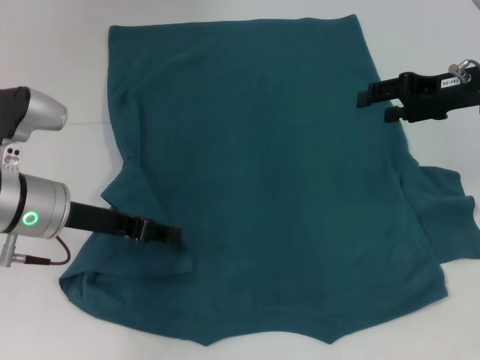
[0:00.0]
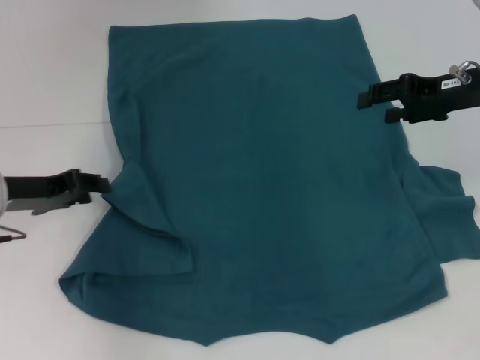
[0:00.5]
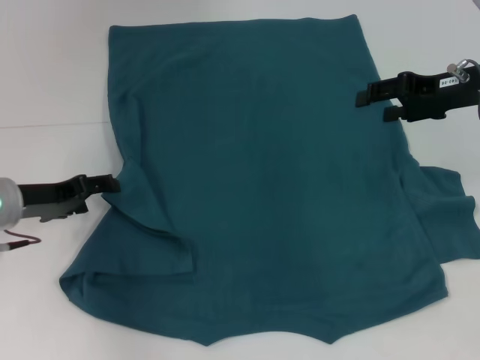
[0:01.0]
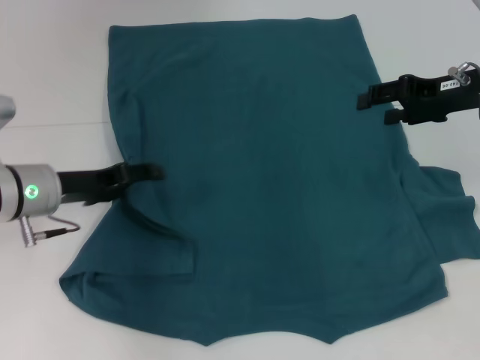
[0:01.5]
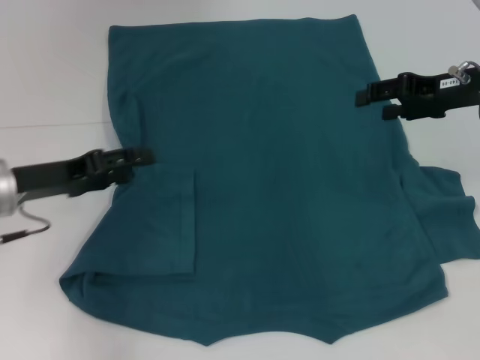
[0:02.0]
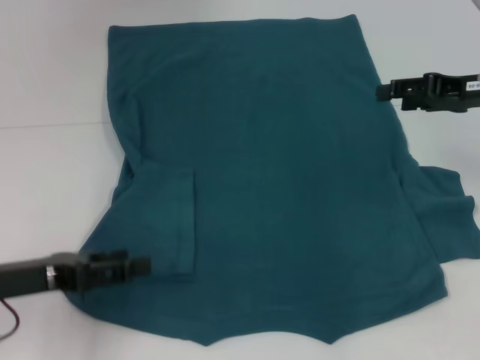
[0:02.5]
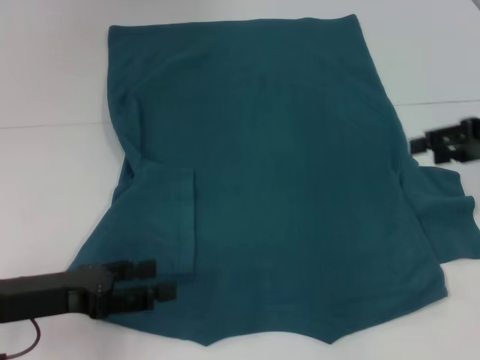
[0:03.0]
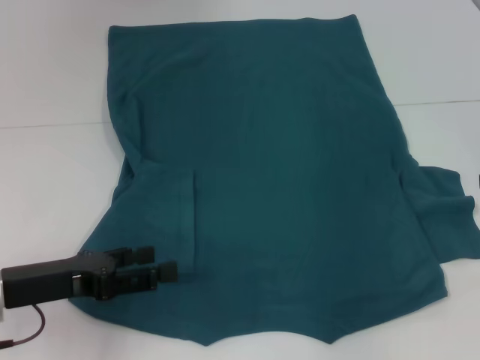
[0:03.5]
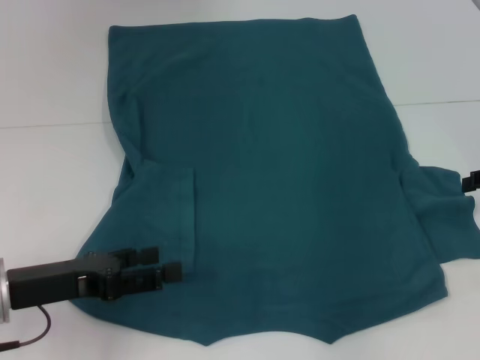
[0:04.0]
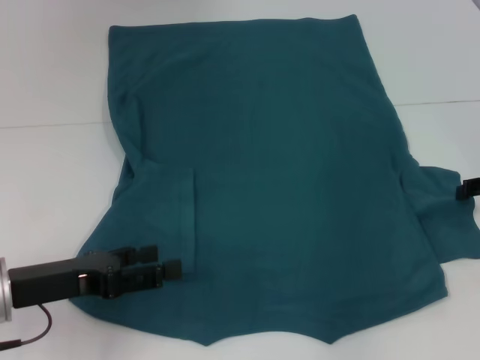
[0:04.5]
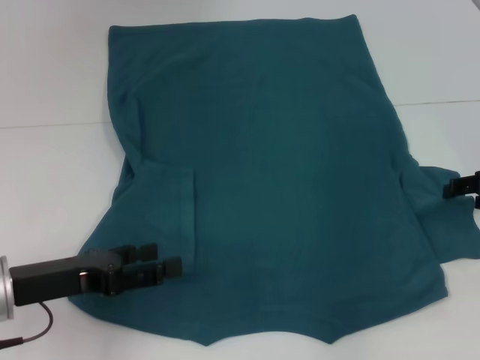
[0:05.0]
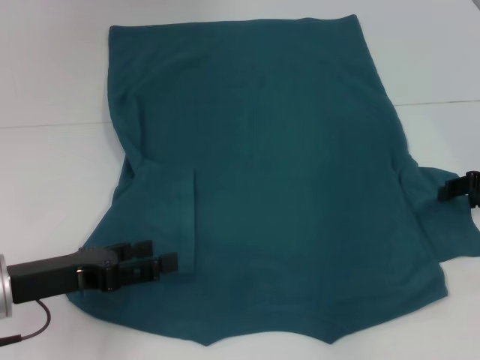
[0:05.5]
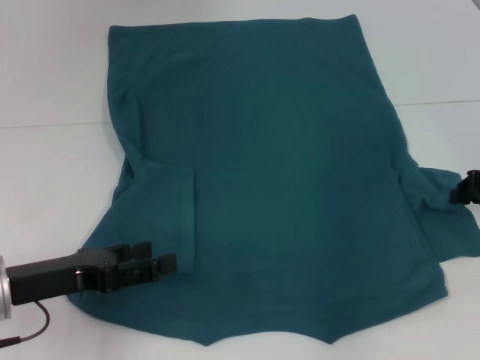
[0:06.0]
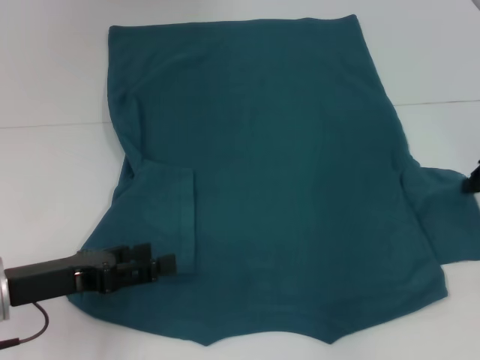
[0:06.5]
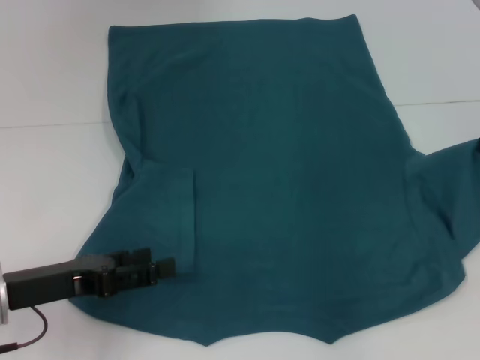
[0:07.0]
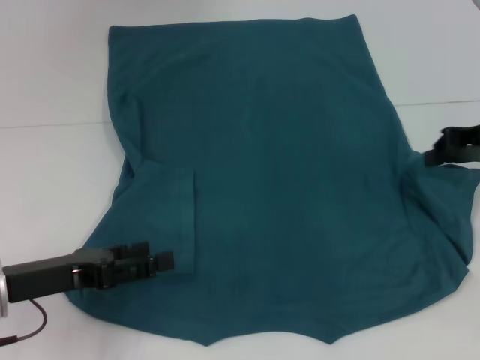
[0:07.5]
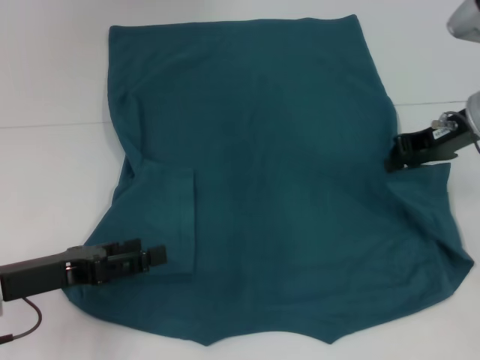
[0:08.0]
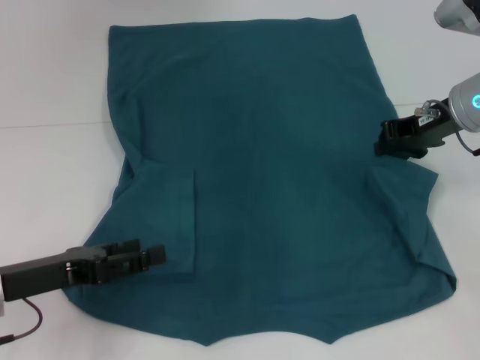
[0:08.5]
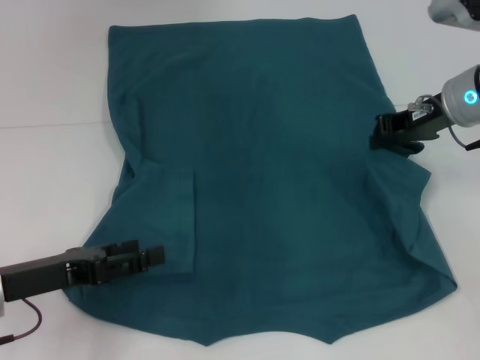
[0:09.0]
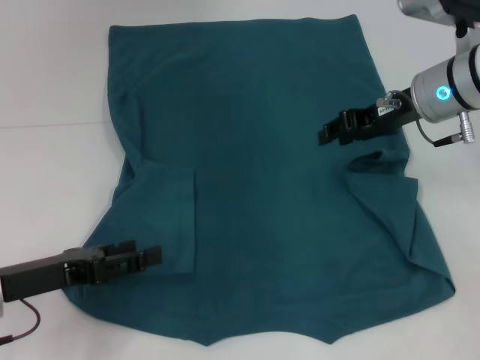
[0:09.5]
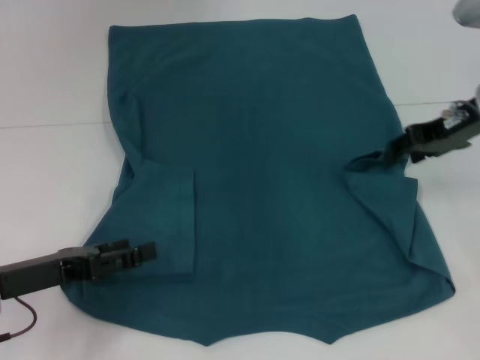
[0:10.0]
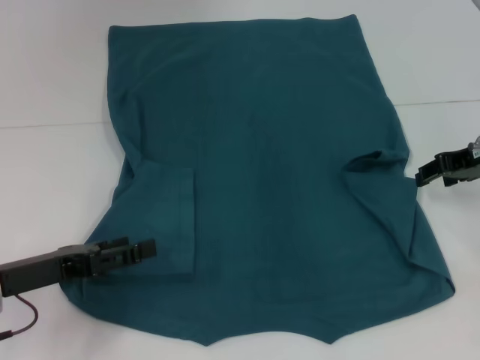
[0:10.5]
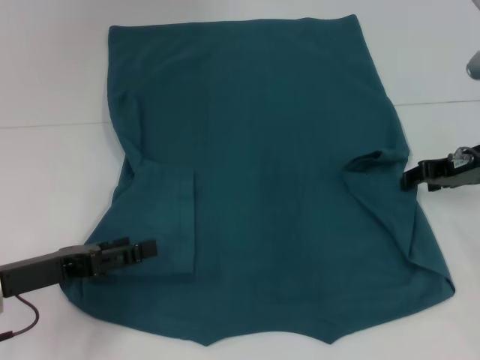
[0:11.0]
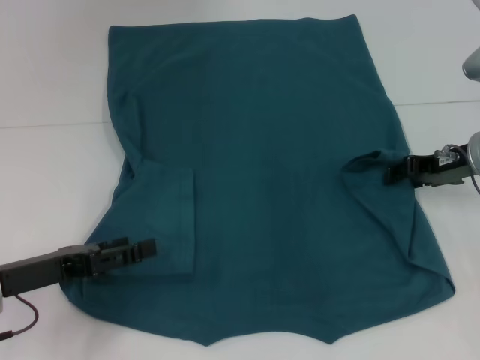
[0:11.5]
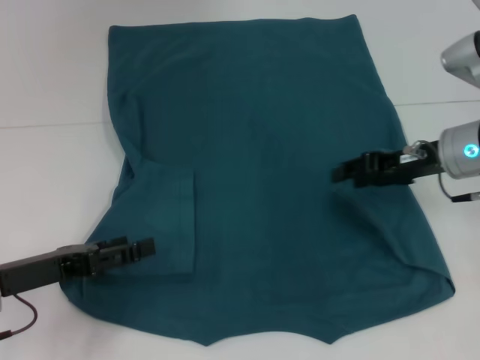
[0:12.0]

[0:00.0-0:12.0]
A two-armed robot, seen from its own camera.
0:00.0 to 0:02.0: The left gripper goes about 5 cm to the left, and opens up.
0:02.0 to 0:04.0: The right gripper travels to the right and backward by approximately 10 cm. Meanwhile the left gripper shifts about 10 cm backward.
0:04.0 to 0:06.0: The right gripper closes its fingers.
0:06.0 to 0:08.0: The right gripper heads to the left, upward and forward, covering roughly 10 cm.
0:08.0 to 0:10.0: The right gripper opens.
0:10.0 to 0:12.0: The right gripper moves downward, some 5 cm.

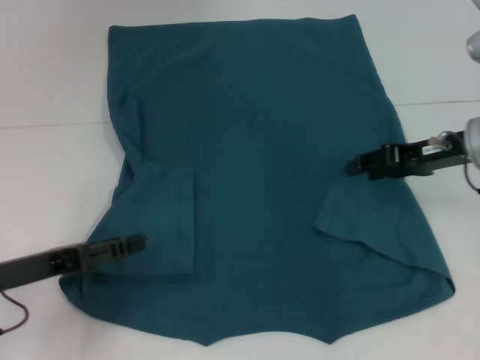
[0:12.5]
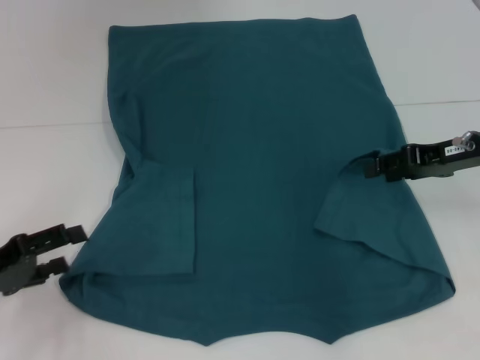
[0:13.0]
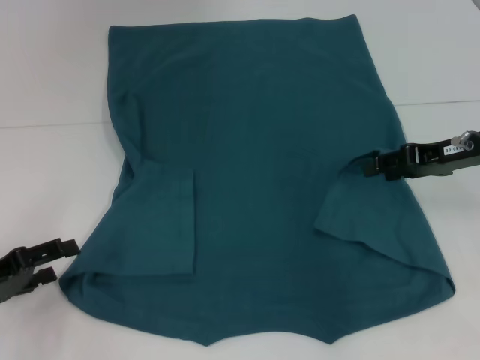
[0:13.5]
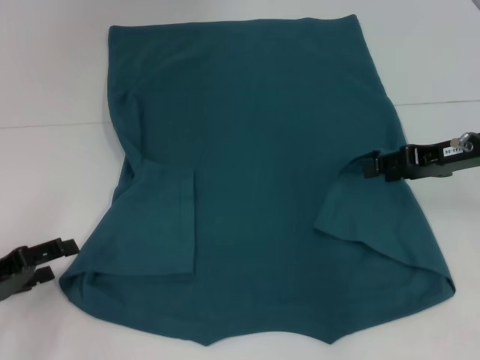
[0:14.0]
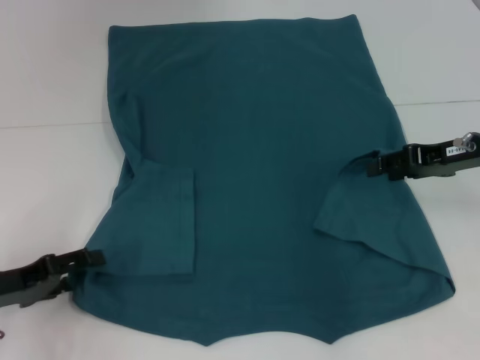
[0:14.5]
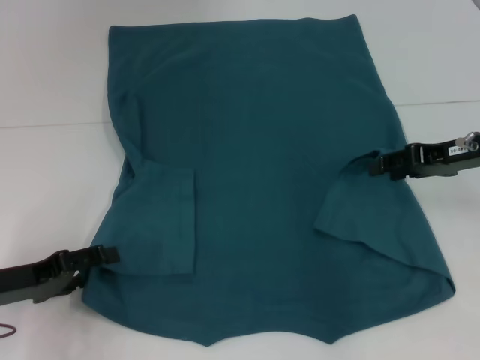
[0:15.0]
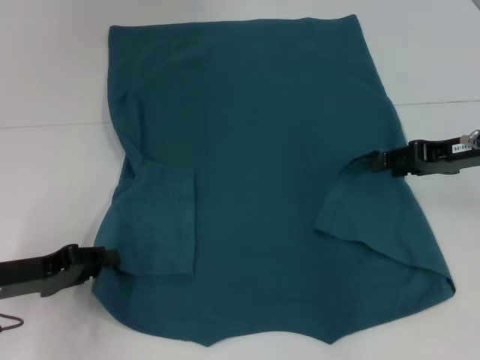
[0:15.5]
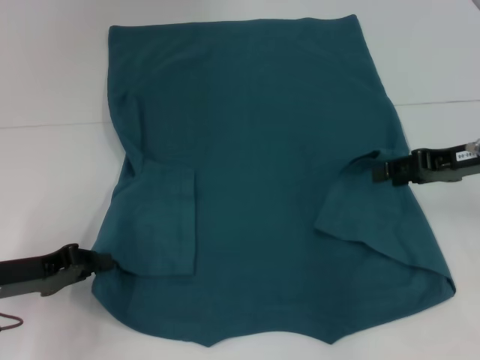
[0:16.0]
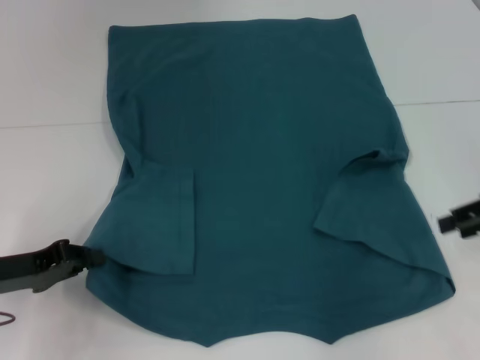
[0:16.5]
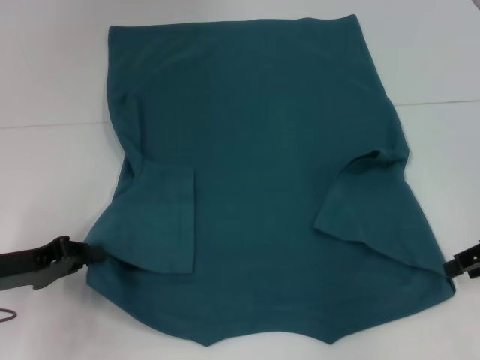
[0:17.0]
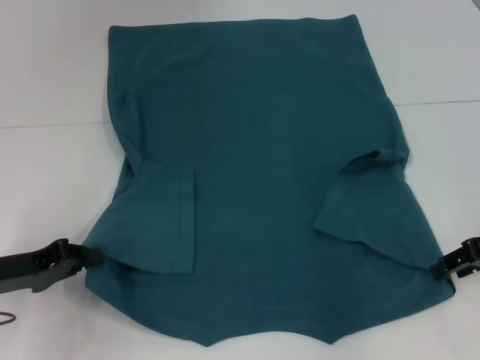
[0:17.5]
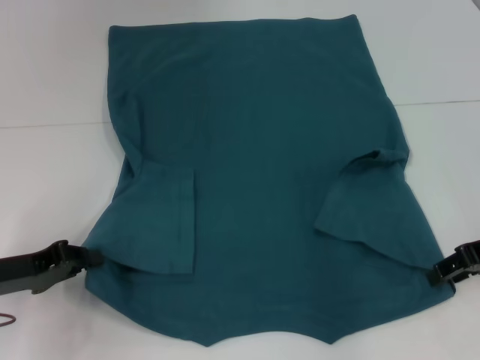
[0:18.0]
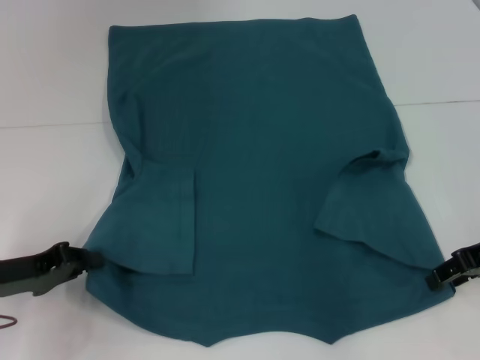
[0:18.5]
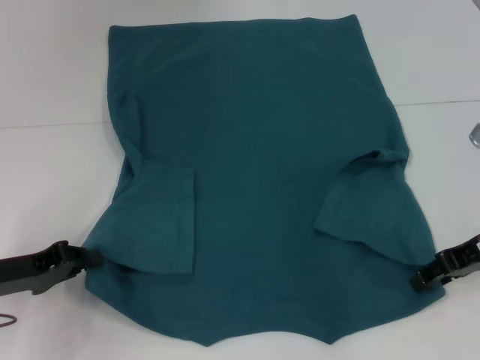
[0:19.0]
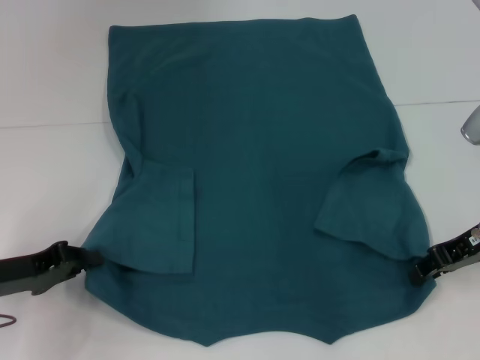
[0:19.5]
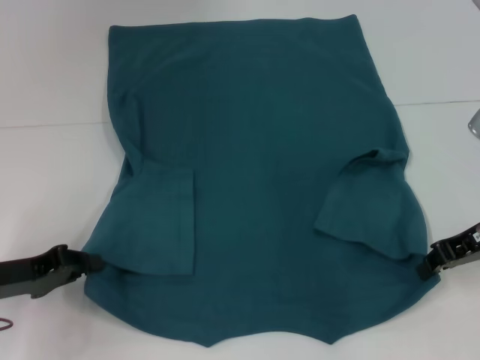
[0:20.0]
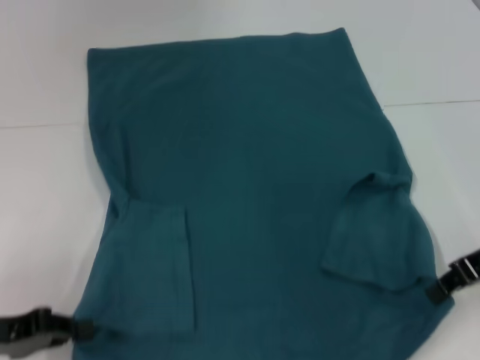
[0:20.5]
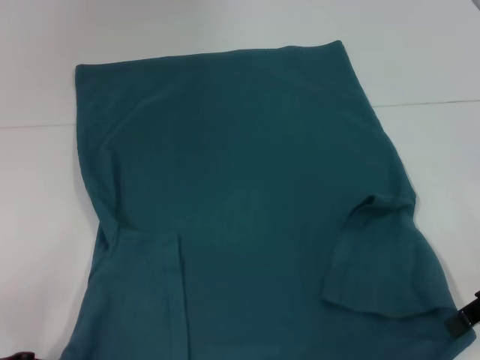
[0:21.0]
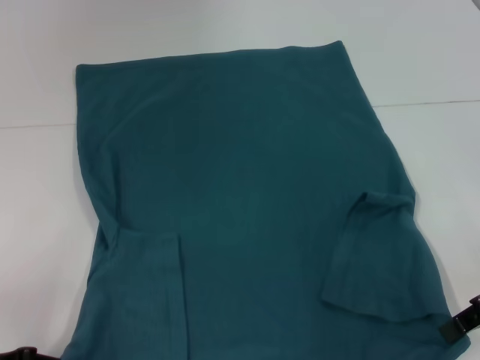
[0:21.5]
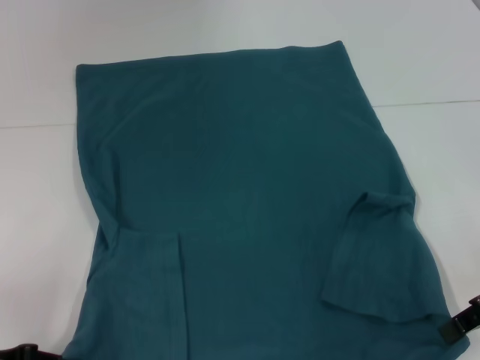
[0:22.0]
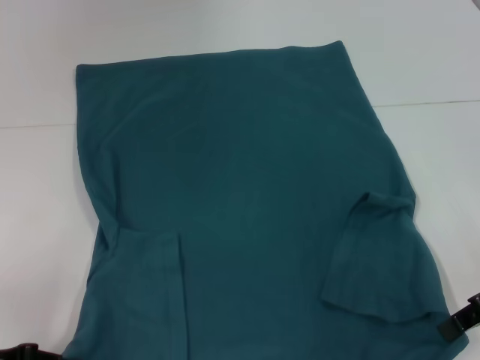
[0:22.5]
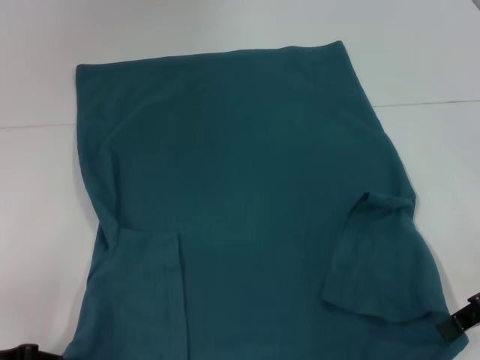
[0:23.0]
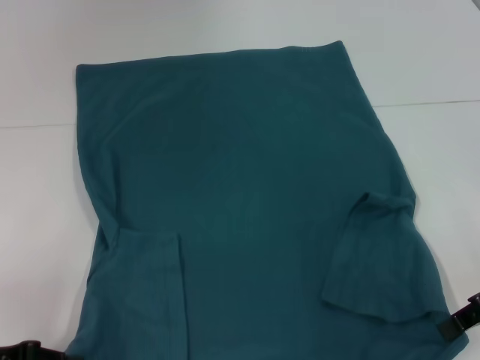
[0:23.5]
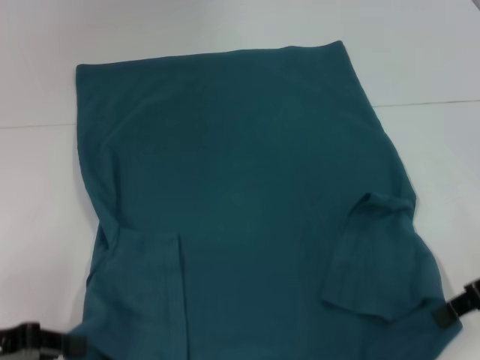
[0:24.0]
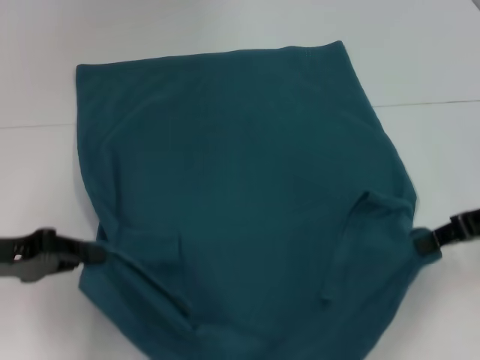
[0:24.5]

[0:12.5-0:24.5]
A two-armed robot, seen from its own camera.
Step, 0:12.5 to 0:16.0: Grab the bottom left corner with your left hand.
Step, 0:16.5 to 0:20.0: Grab the bottom right corner with your right hand.
0:14.5 to 0:16.5: The right gripper is displaced to the right by about 5 cm; the left gripper closes its fingers.
0:16.5 to 0:18.5: The right gripper ends up some 5 cm from where it was.
0:18.5 to 0:20.5: The right gripper closes up.
0:20.5 to 0:22.5: The grippers make only small movements.
0:22.5 to 0:24.5: The left gripper goes approximately 5 cm forward.

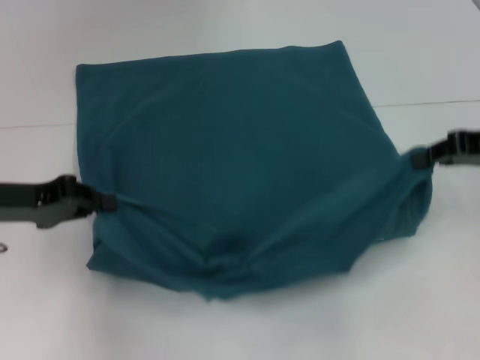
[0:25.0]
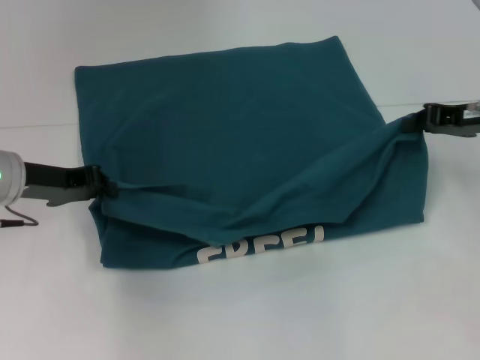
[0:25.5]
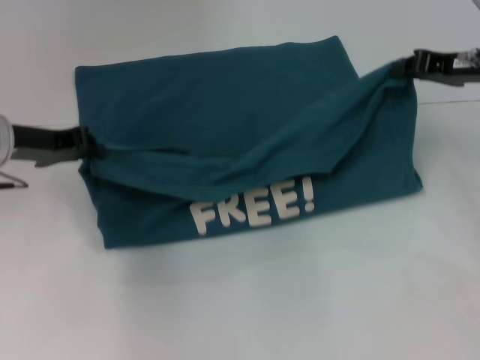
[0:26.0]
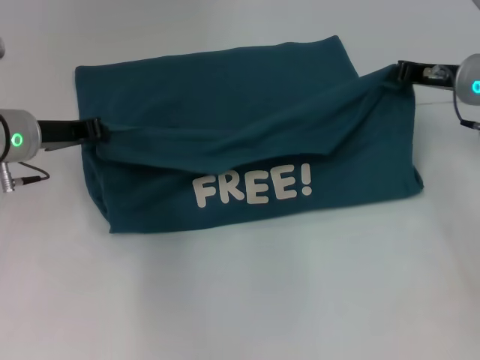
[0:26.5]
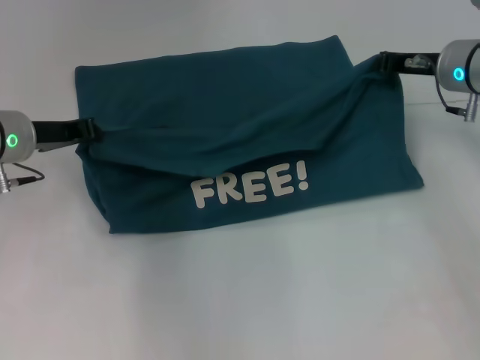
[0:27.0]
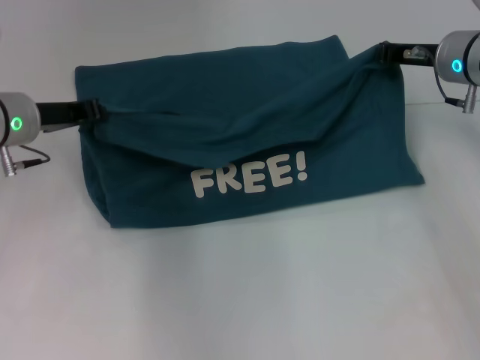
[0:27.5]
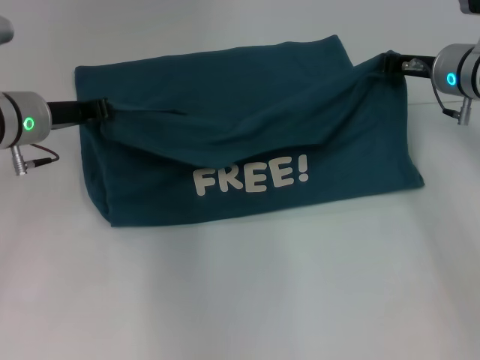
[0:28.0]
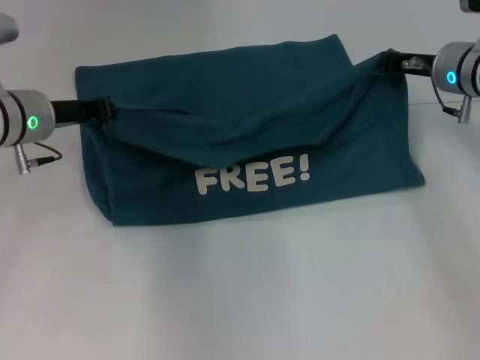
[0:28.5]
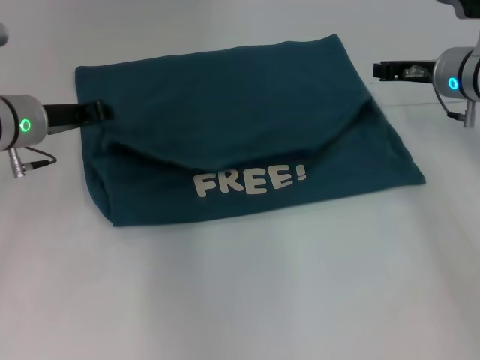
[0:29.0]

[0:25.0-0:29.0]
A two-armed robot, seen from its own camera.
0:25.0 to 0:27.0: The right gripper shifts approximately 15 cm forward and to the left; the left gripper moves forward, approximately 10 cm.
0:27.0 to 0:29.0: The grippers make only small movements.
